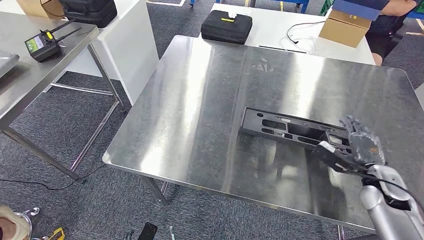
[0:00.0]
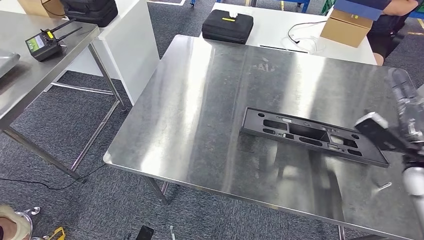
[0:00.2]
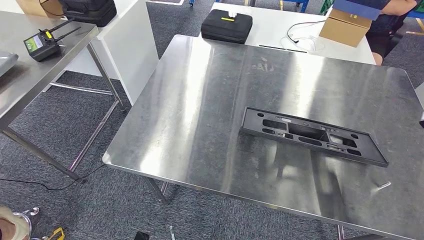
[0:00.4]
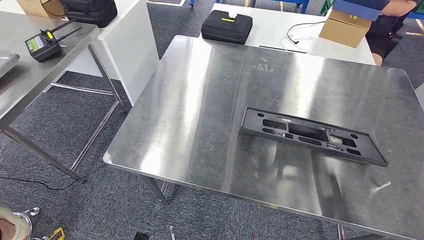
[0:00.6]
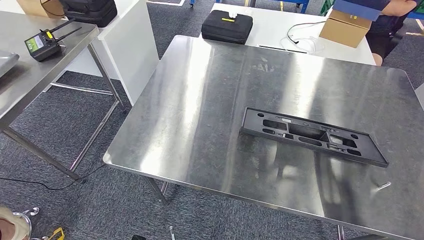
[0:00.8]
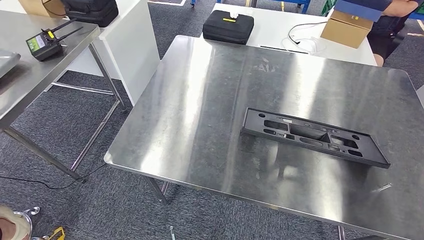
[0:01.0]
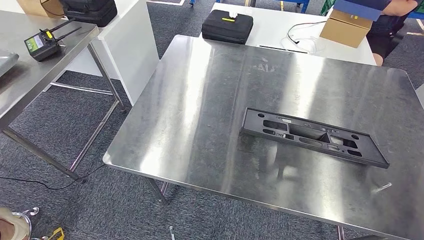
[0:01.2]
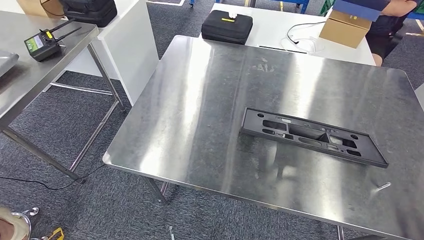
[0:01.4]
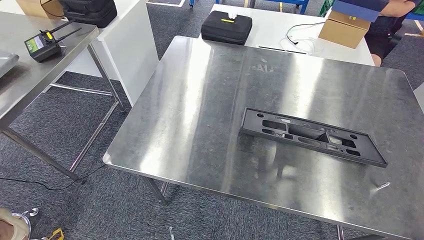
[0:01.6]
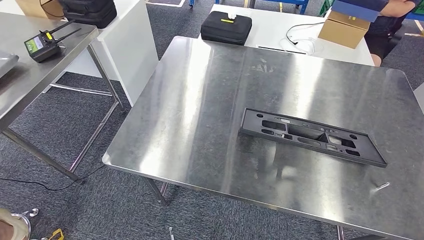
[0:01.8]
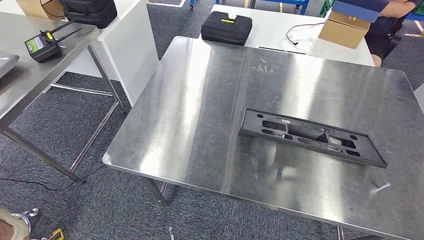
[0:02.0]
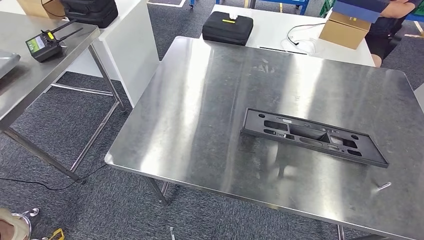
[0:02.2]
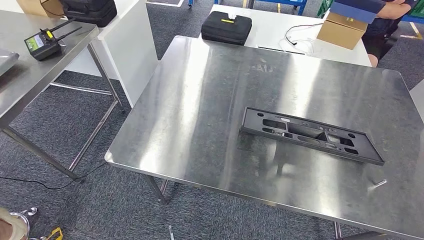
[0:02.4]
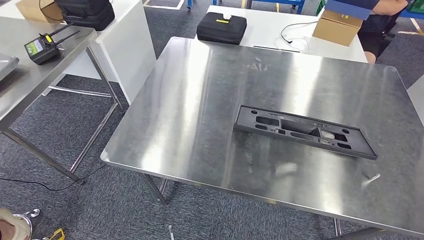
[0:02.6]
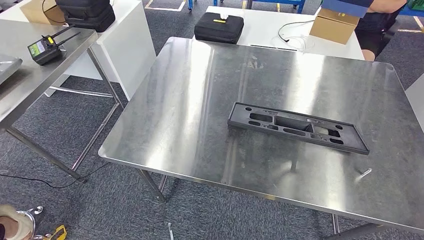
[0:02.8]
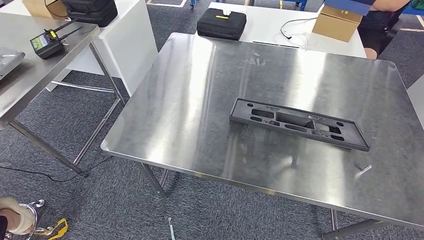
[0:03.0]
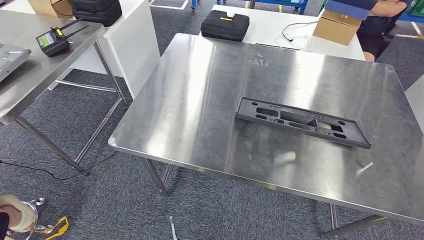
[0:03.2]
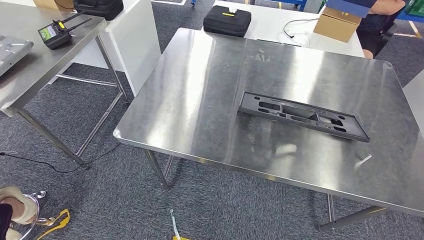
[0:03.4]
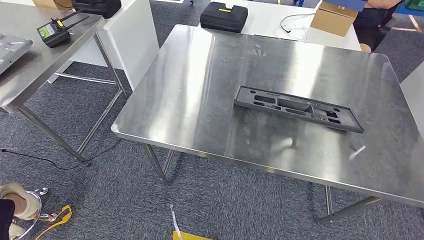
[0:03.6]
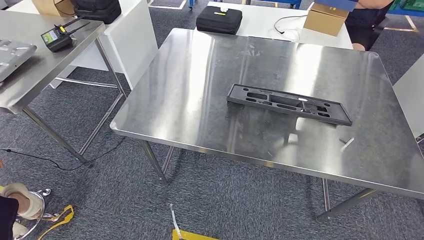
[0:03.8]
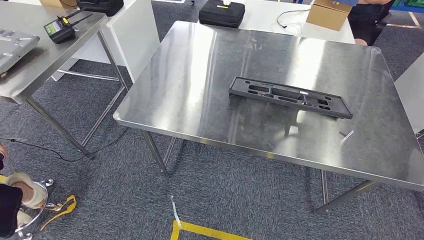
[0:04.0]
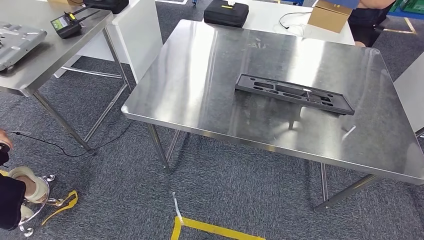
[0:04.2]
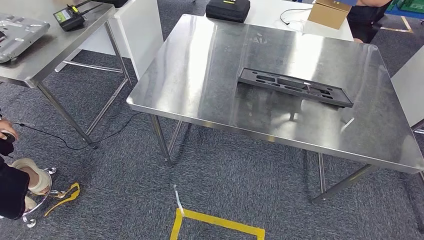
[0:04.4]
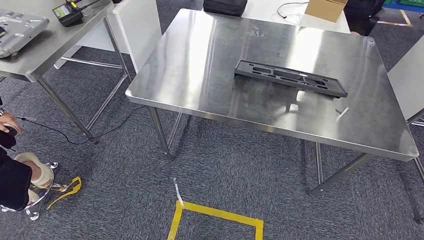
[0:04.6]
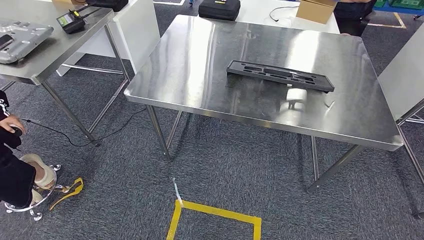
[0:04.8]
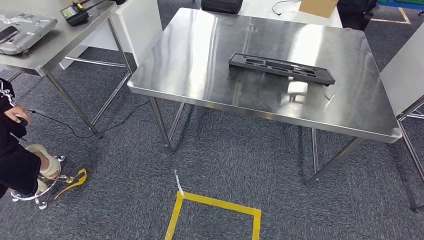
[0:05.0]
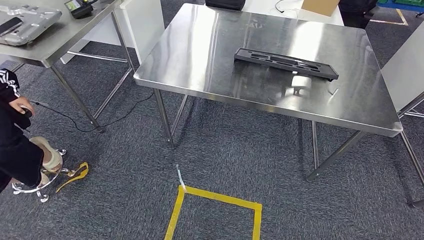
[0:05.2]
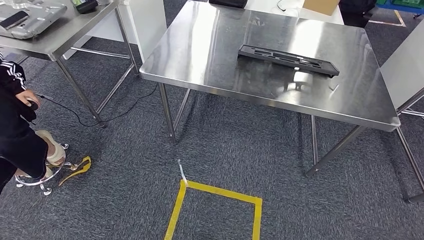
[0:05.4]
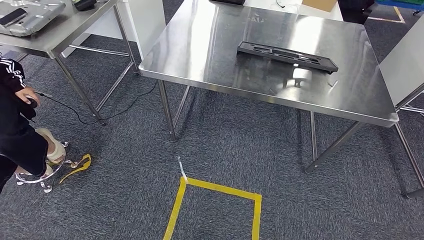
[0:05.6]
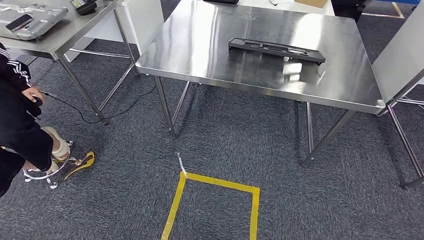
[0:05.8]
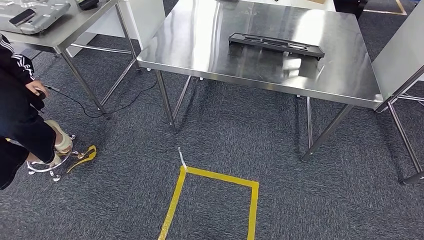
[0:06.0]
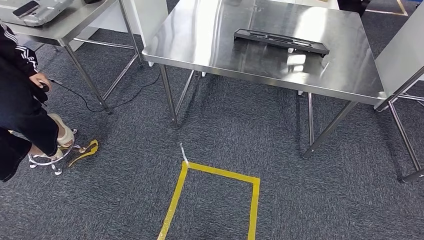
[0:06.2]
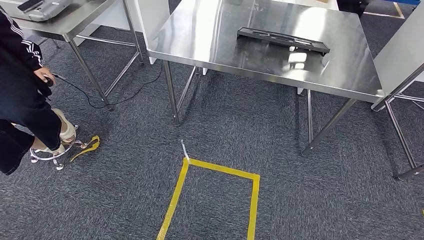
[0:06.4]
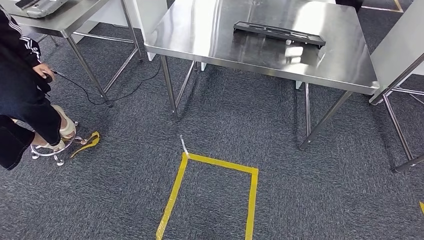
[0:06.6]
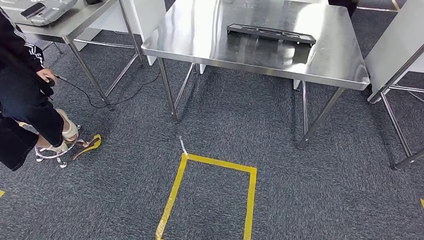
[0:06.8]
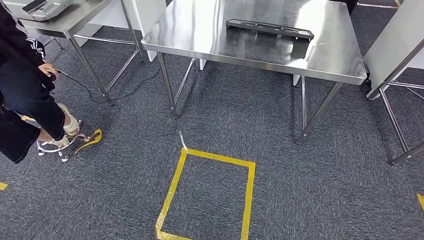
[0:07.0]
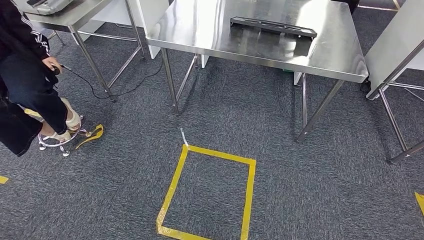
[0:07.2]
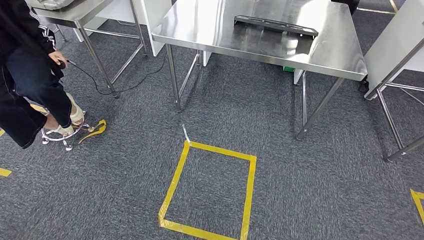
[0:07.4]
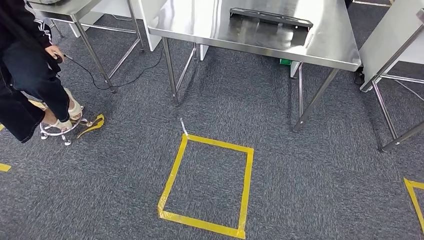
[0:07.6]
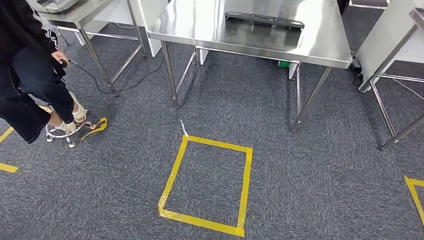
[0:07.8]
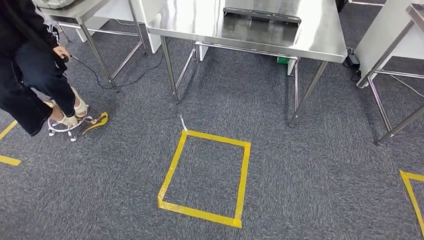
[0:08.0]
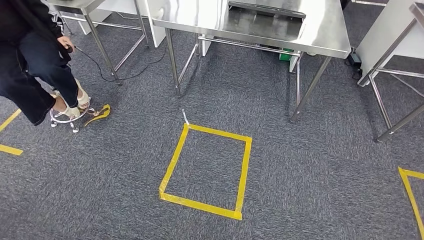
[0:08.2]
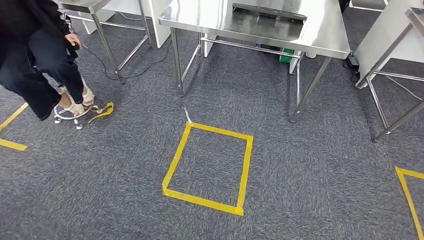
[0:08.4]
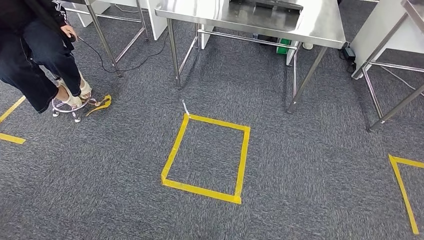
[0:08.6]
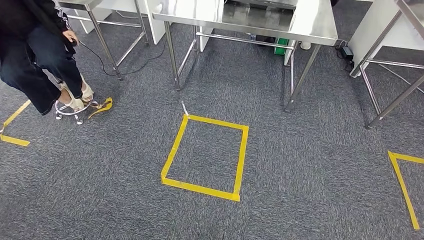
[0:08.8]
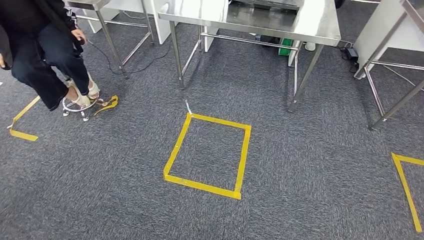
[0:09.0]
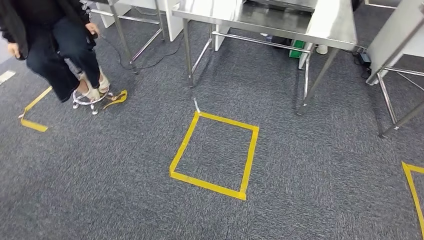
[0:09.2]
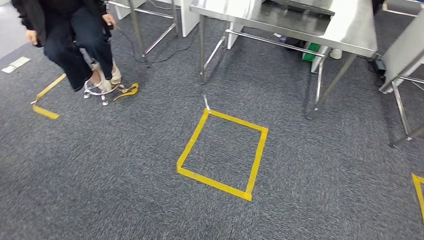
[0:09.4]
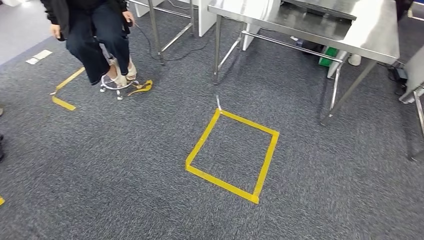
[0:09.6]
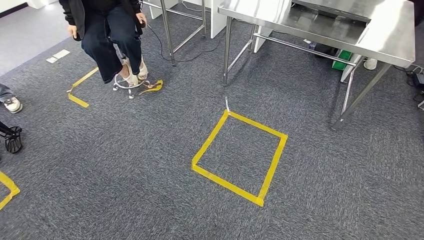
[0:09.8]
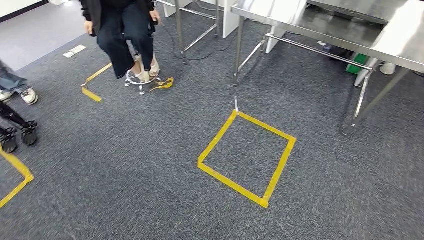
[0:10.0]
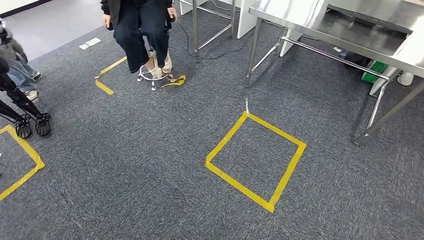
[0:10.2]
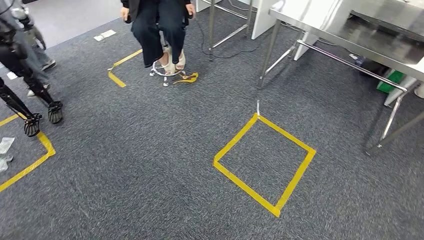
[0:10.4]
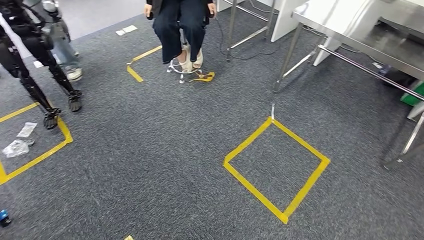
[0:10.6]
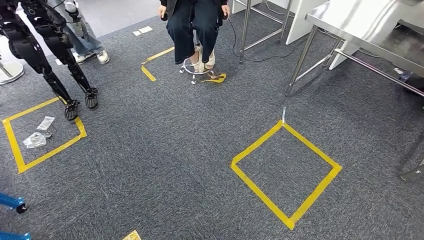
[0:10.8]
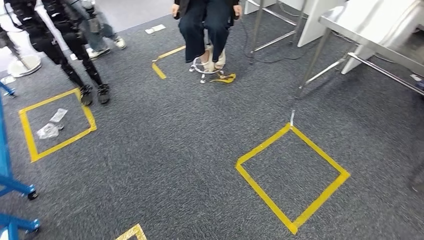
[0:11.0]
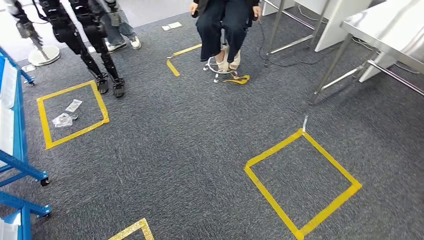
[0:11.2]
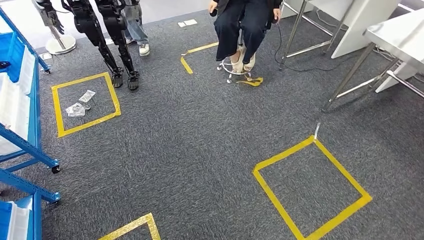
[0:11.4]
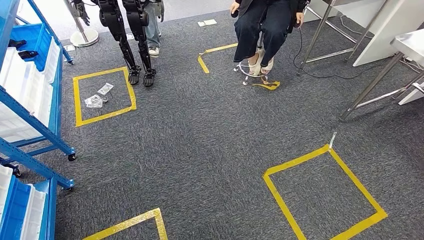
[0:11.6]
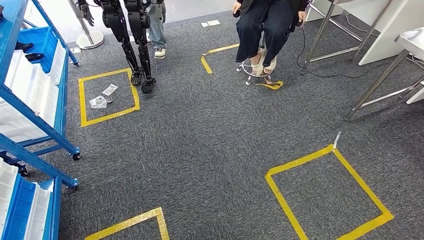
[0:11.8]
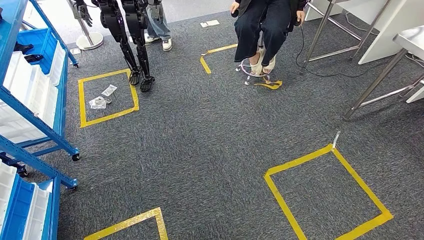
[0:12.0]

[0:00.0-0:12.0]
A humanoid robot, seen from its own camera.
Step, 0:00.0 to 0:02.2: Insert the large material into the corresponding slot on the workbench.
0:00.0 to 0:01.6: The right hand shifts some 30 cm backward and downward; the left hand shifts approximately 5 cm backward.

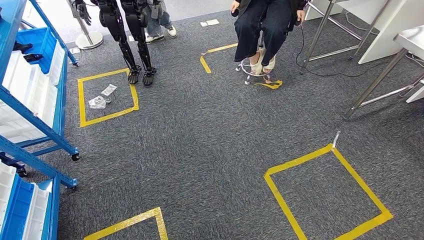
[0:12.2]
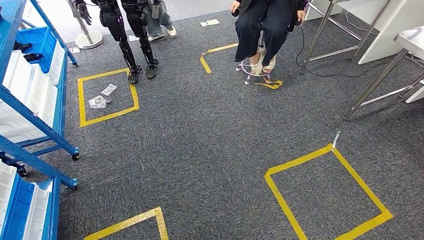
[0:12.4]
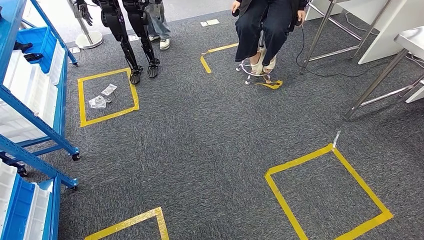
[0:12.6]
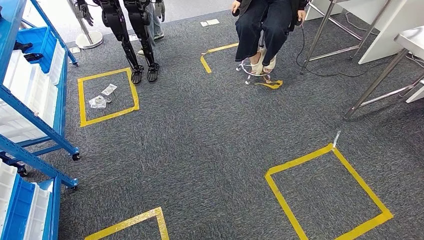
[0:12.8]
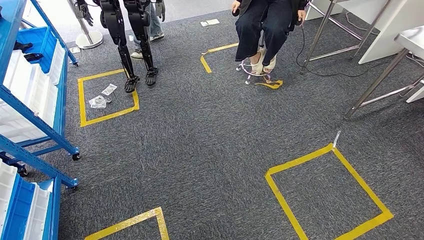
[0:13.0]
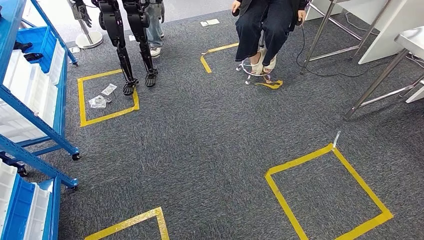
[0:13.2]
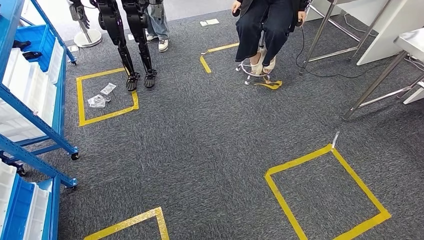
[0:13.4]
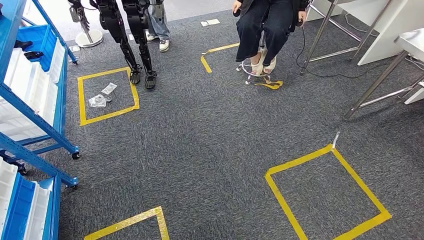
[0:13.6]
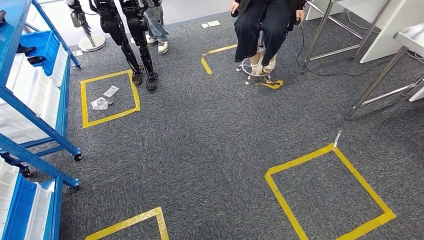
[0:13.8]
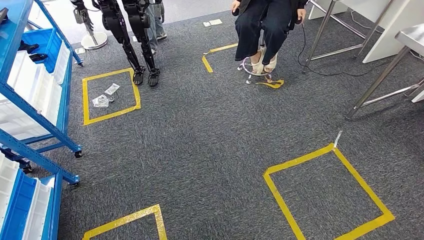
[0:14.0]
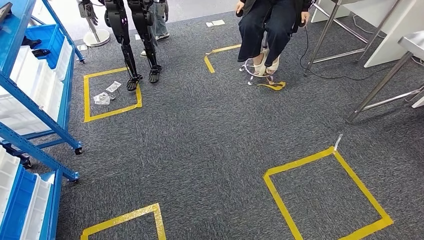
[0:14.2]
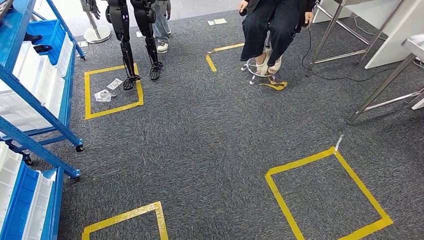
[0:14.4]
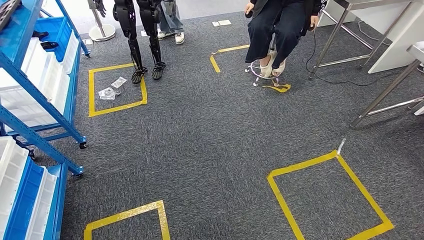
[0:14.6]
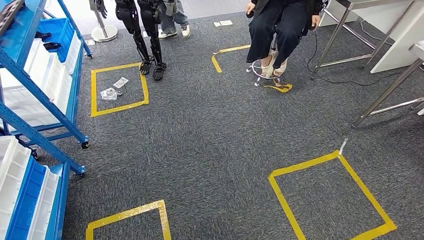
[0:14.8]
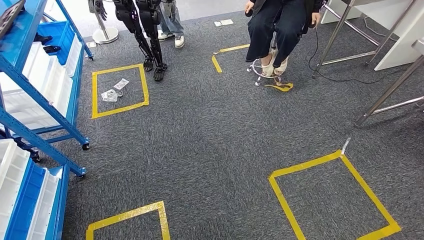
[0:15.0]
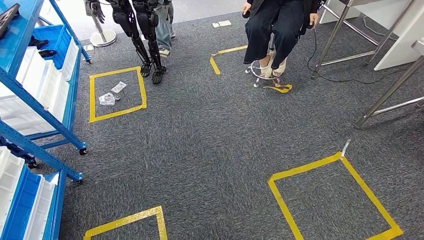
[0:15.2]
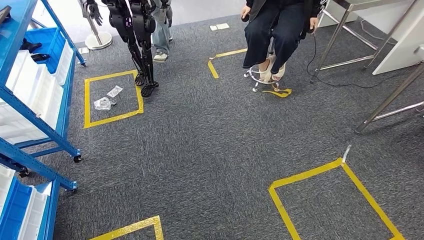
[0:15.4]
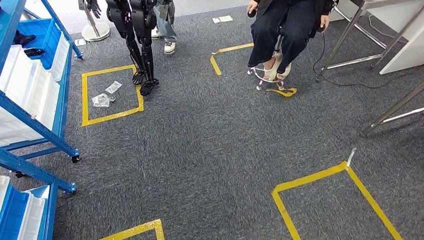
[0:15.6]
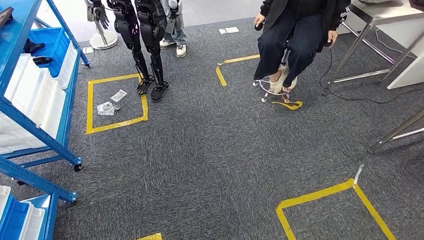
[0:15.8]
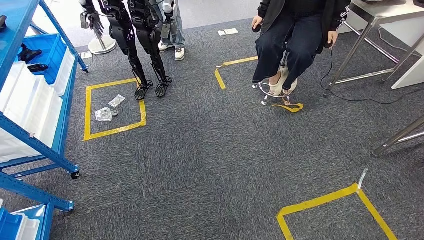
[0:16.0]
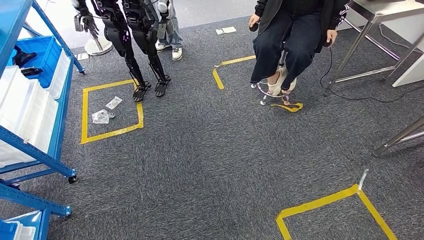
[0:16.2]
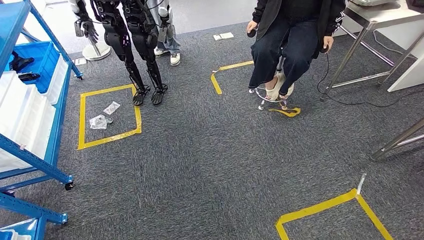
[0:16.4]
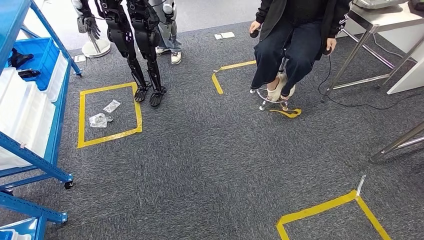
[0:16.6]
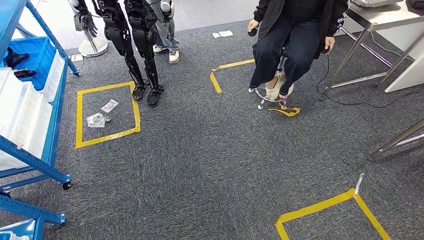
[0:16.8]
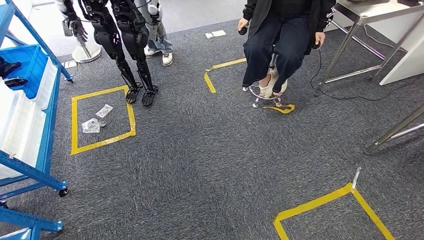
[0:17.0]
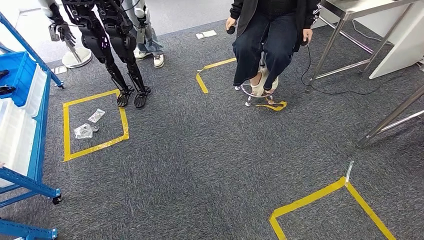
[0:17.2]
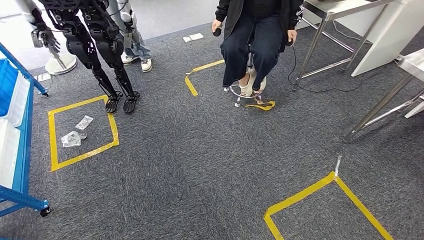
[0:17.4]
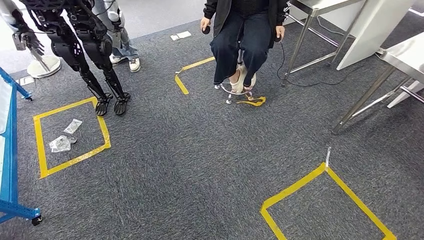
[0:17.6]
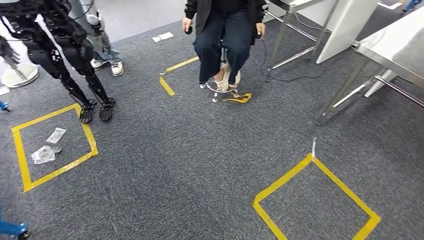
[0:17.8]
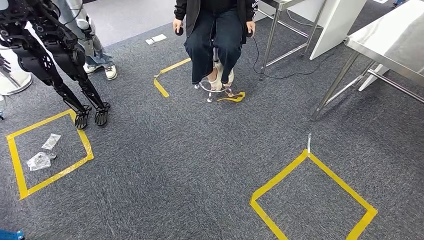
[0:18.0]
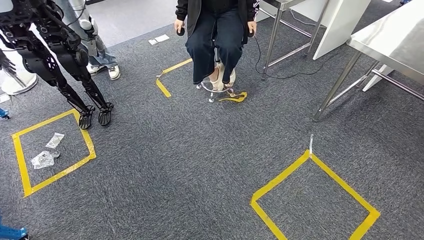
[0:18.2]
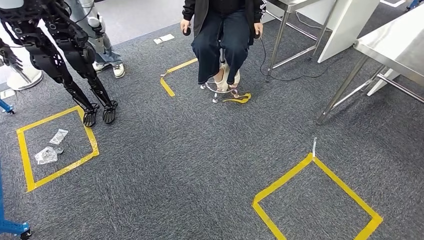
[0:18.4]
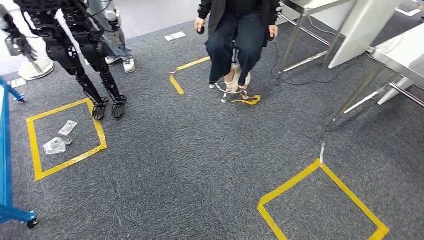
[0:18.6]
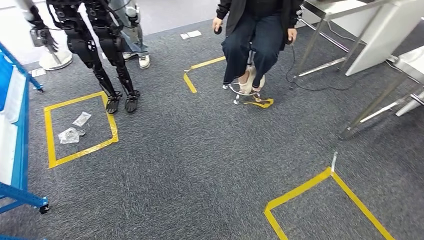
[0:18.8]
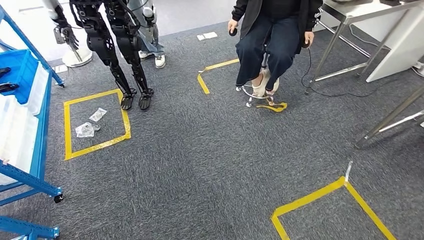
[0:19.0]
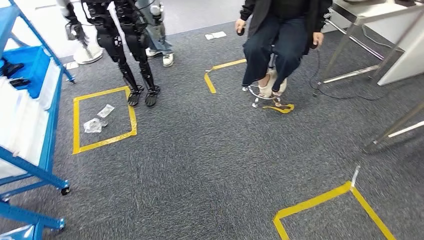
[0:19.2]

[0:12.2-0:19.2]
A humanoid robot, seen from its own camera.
0:12.2 to 0:13.6: Both hands stay about where they are.
